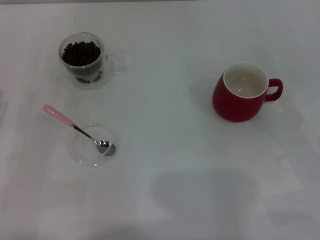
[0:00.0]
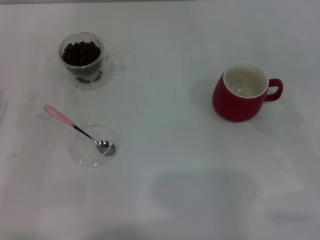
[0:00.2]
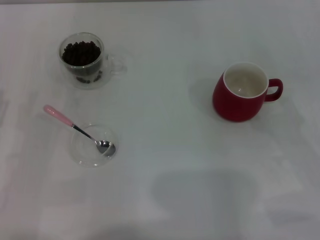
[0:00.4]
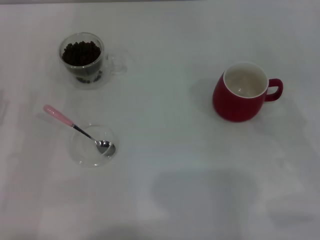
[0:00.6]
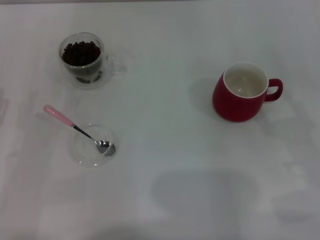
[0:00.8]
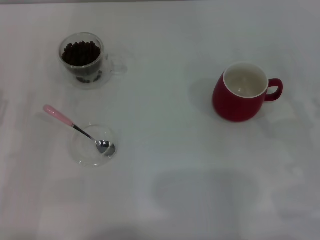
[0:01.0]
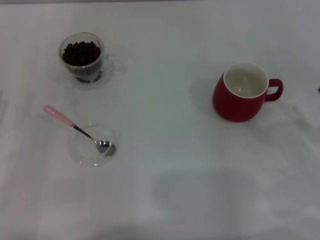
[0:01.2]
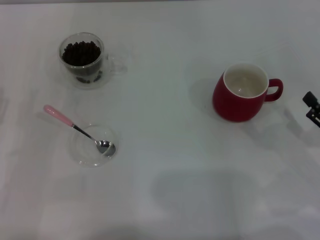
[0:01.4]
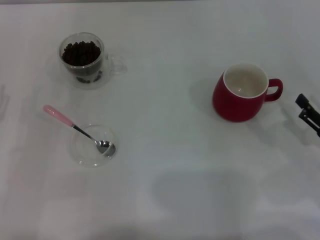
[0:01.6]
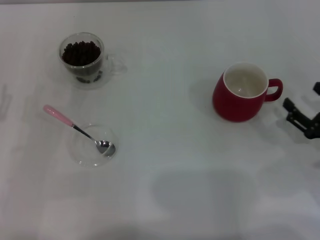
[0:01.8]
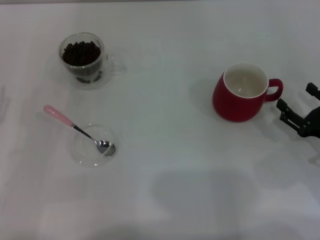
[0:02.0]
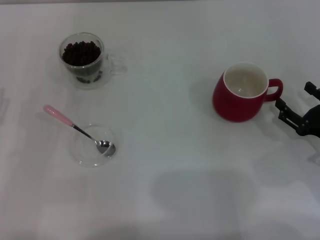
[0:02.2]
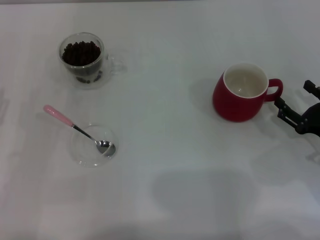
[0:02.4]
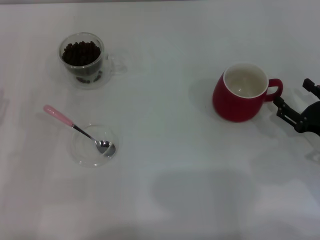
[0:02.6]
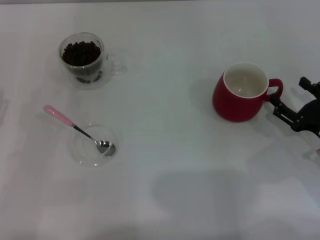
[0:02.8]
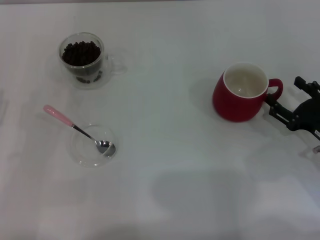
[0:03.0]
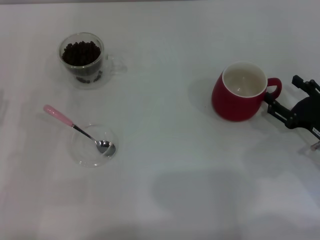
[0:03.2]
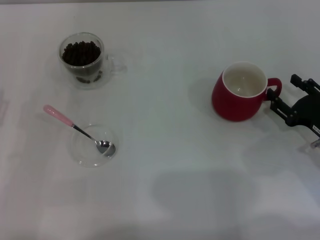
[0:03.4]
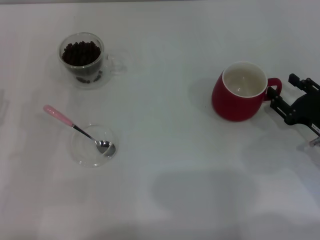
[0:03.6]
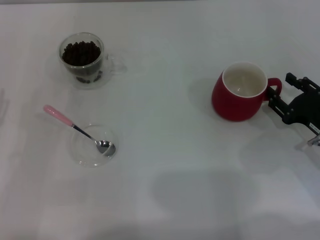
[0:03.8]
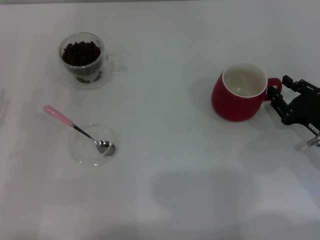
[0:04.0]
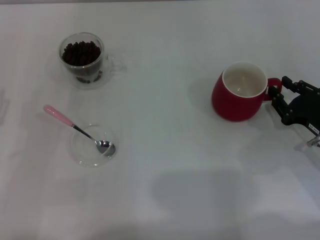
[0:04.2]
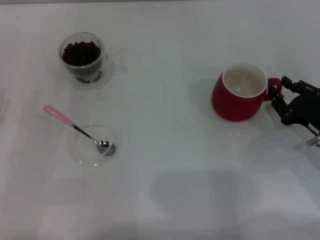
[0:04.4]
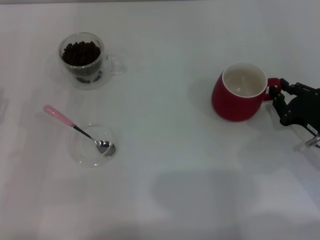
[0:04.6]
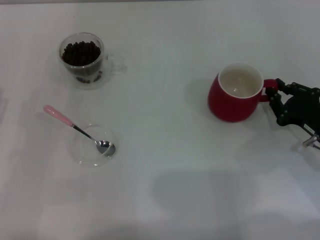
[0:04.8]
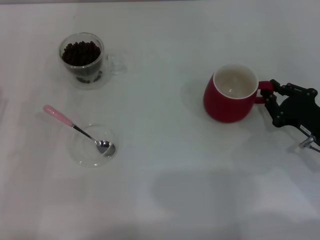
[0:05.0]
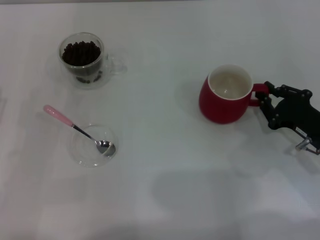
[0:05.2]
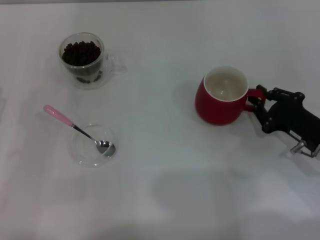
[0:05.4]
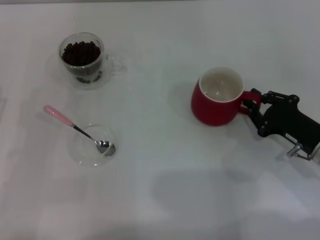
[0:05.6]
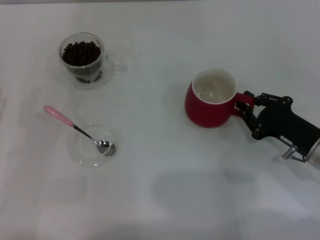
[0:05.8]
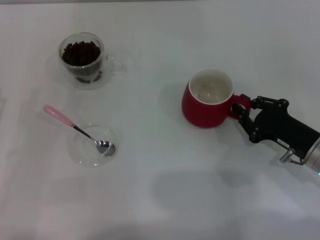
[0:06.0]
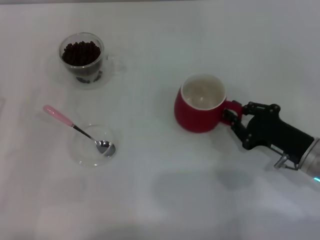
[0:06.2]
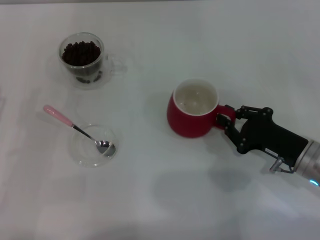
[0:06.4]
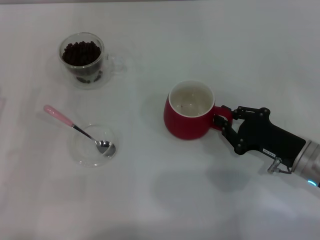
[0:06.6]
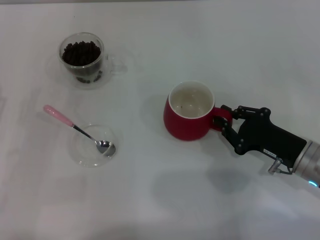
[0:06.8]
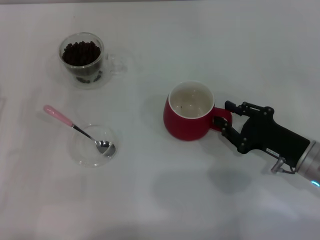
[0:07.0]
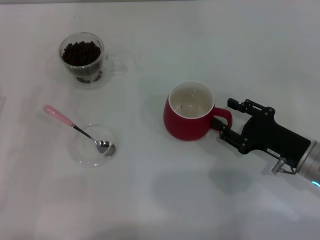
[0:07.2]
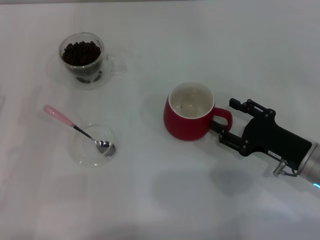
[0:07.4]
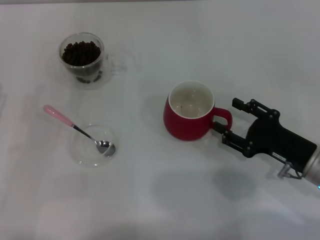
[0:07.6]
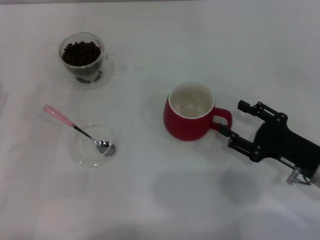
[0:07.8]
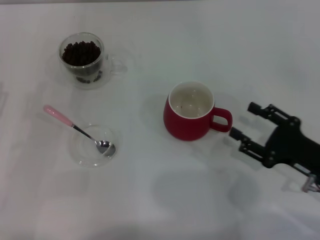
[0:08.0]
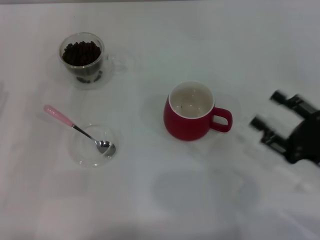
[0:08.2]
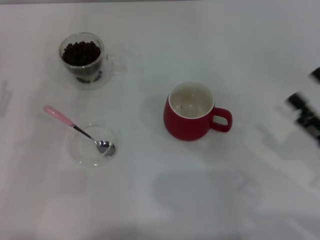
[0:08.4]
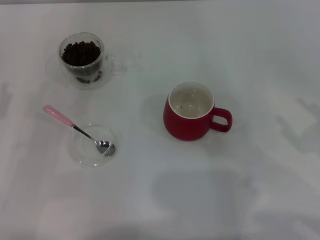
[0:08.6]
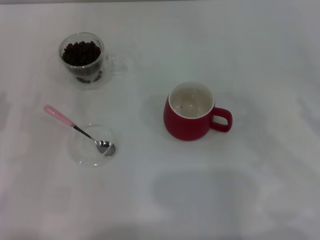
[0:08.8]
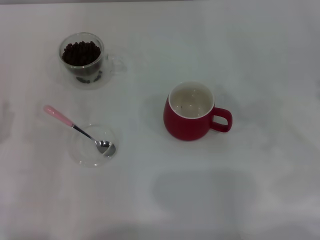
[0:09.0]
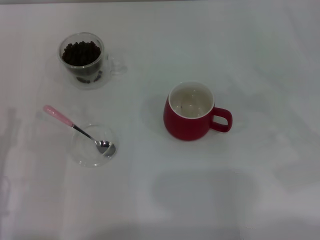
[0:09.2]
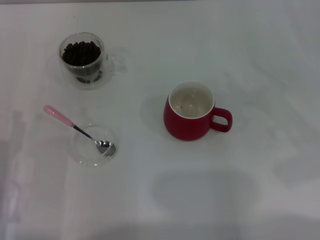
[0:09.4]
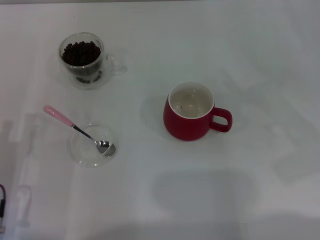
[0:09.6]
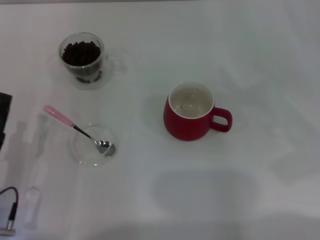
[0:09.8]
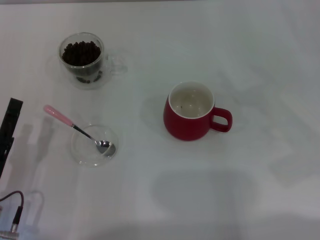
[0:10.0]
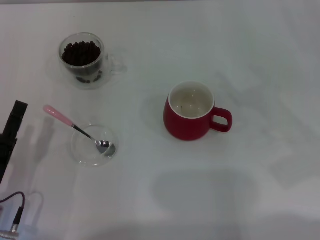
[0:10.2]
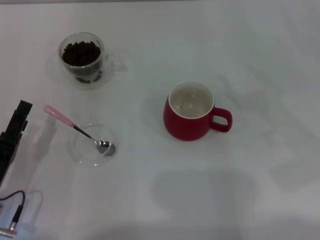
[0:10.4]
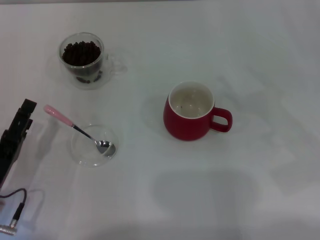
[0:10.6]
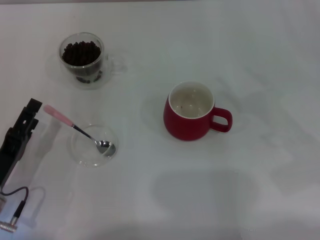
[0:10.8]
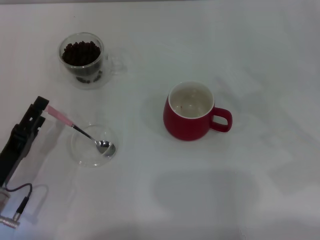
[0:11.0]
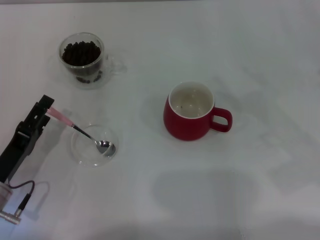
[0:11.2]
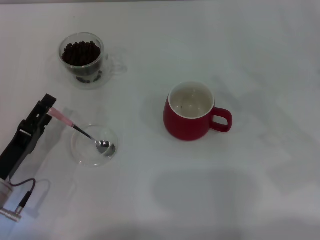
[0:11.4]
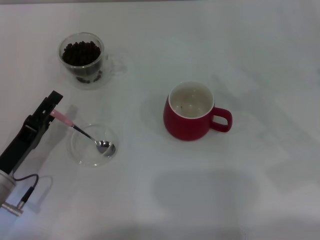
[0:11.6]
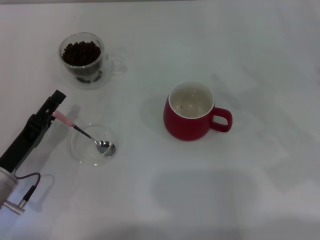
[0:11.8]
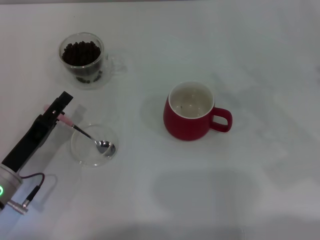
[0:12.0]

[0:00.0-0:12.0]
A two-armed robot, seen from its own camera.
Task of the whole recording: Use a pink spoon to take out the coffee beans from the glass and pour them into the red cup.
Step, 0:00.0 to 0:07.6: Move the cup to the center of view with the left gripper.
0:00.0 to 0:01.6: The right gripper heads downward, covering about 5 cm.
0:01.6 to 0:03.0: The grippers stay close to where they were, moving slightly.
0:03.0 to 0:04.4: The right gripper closes its fingers.
0:04.4 to 0:06.0: There are only small adjustments of the grippers.
0:06.0 to 0:07.6: The right gripper opens.
0:07.6 to 0:09.0: The right gripper is displaced to the right and upward by roughly 15 cm.
0:09.0 to 0:10.4: The left gripper moves roughly 5 cm.
0:10.4 to 0:12.0: The left gripper heads forward, covering roughly 5 cm.

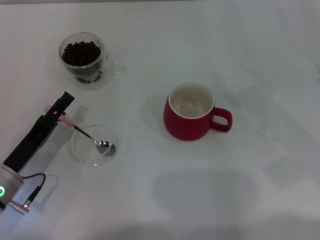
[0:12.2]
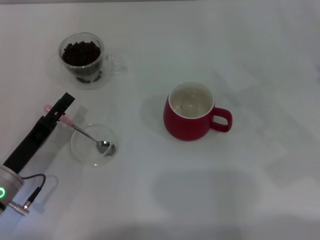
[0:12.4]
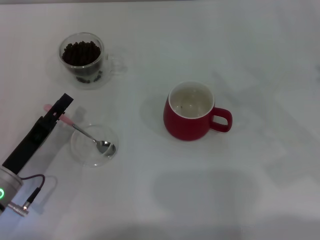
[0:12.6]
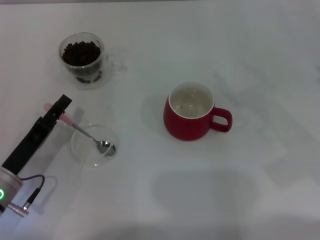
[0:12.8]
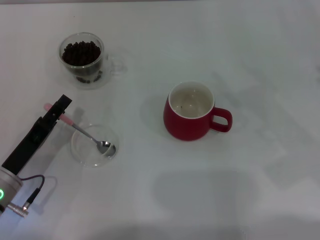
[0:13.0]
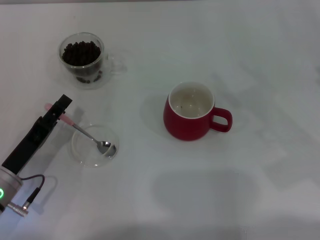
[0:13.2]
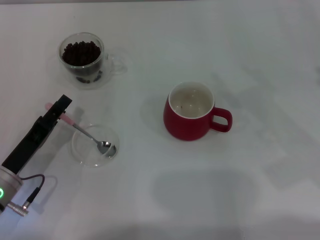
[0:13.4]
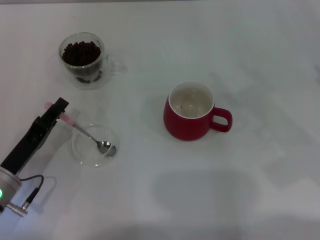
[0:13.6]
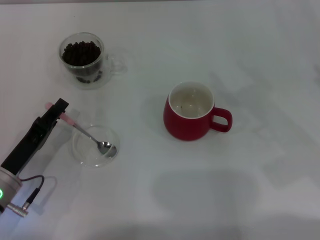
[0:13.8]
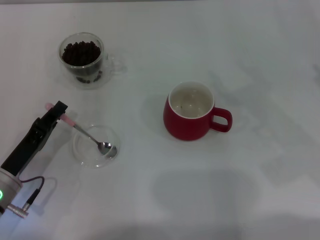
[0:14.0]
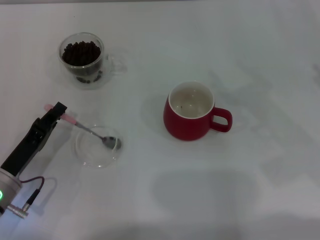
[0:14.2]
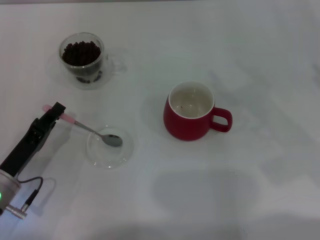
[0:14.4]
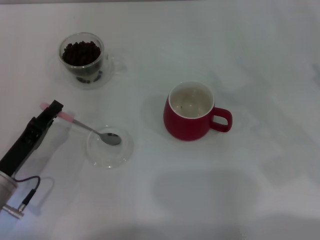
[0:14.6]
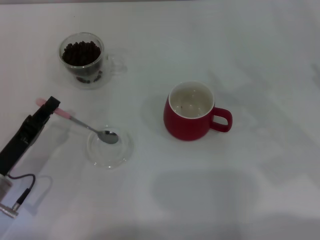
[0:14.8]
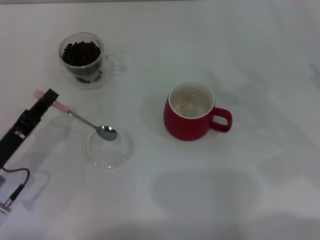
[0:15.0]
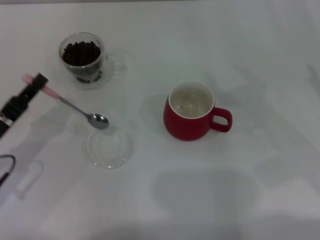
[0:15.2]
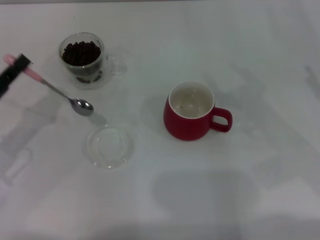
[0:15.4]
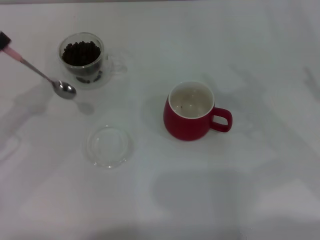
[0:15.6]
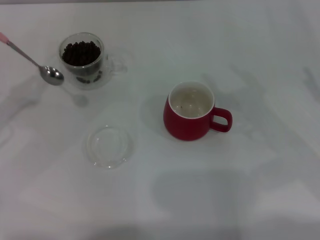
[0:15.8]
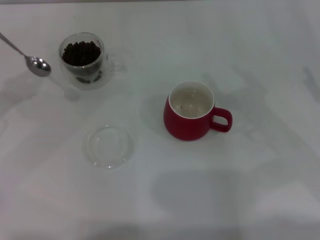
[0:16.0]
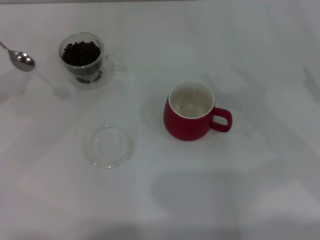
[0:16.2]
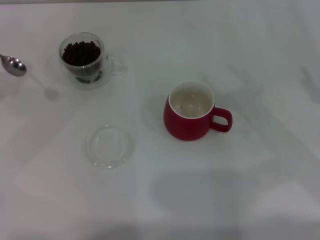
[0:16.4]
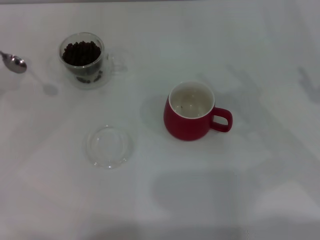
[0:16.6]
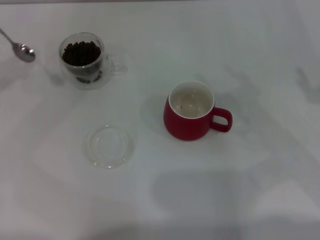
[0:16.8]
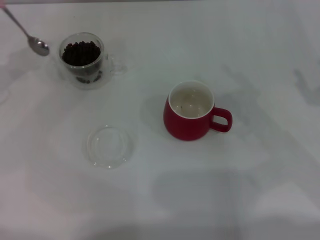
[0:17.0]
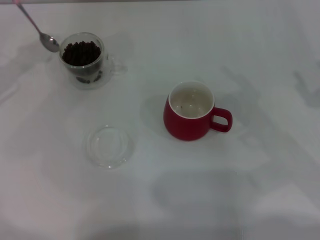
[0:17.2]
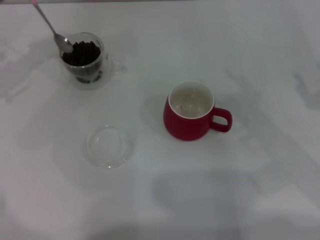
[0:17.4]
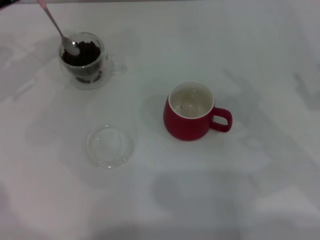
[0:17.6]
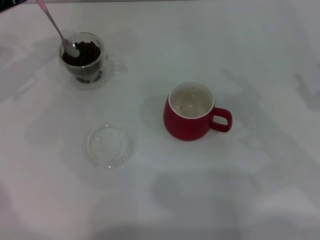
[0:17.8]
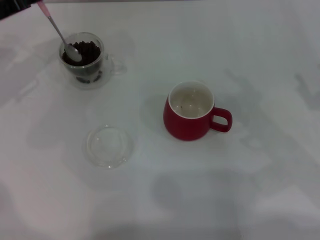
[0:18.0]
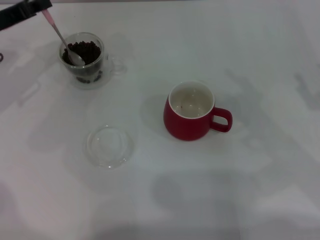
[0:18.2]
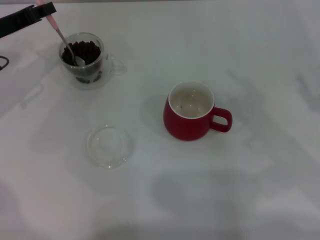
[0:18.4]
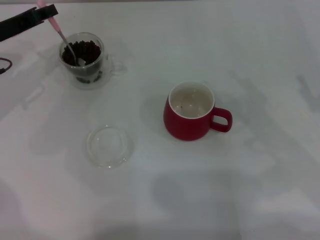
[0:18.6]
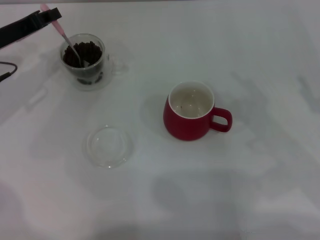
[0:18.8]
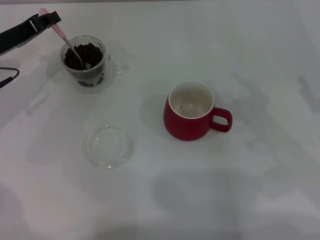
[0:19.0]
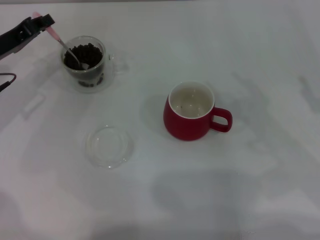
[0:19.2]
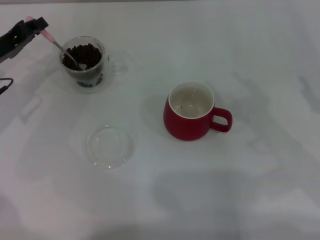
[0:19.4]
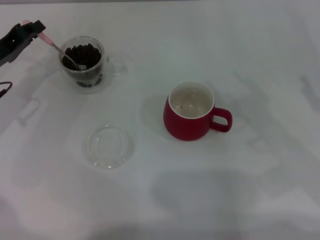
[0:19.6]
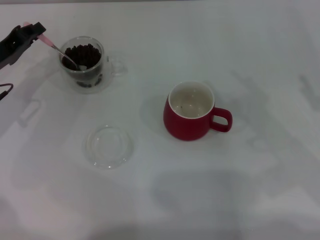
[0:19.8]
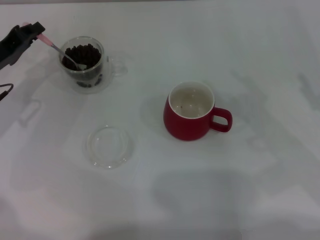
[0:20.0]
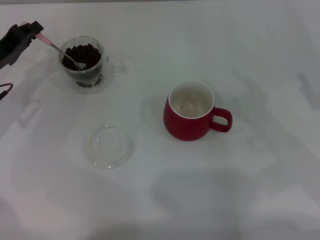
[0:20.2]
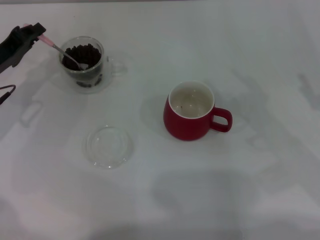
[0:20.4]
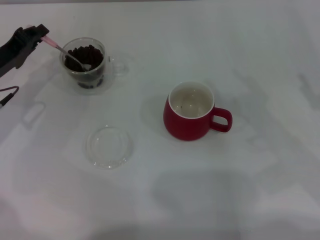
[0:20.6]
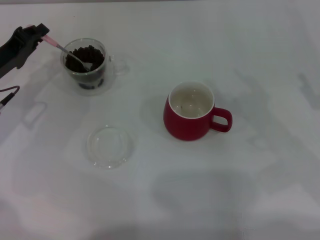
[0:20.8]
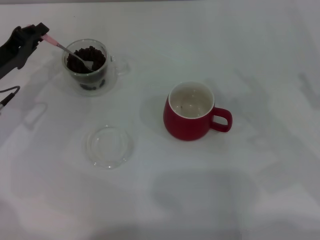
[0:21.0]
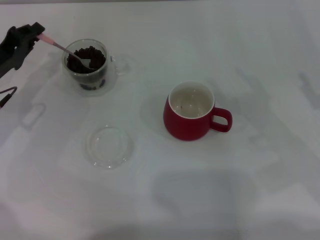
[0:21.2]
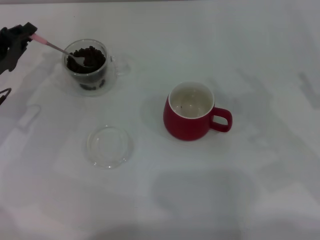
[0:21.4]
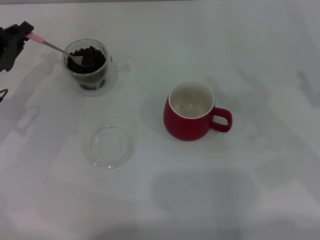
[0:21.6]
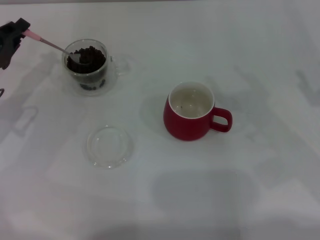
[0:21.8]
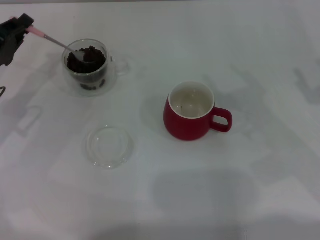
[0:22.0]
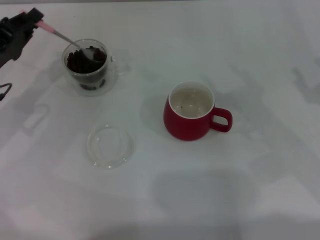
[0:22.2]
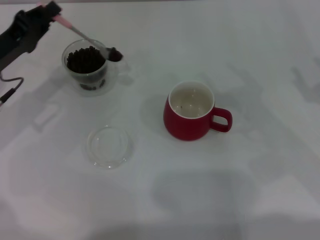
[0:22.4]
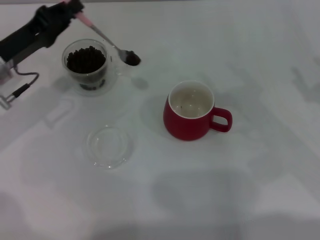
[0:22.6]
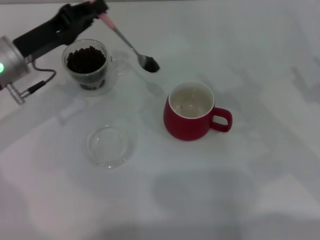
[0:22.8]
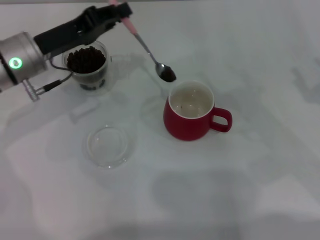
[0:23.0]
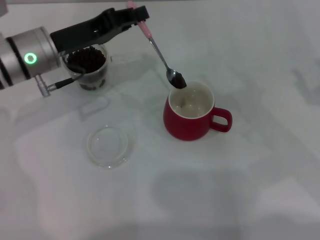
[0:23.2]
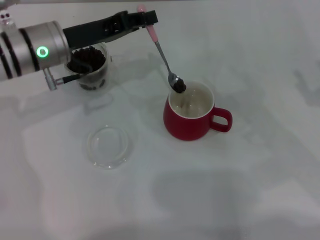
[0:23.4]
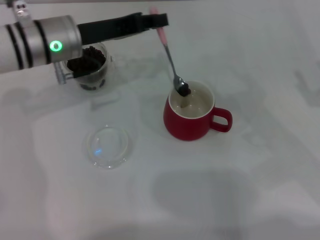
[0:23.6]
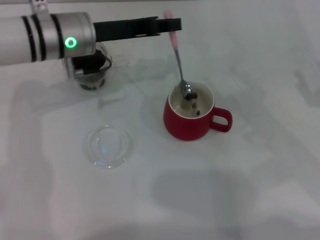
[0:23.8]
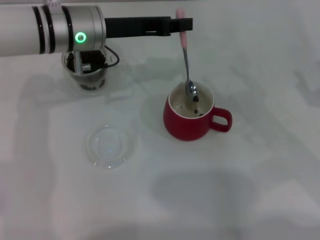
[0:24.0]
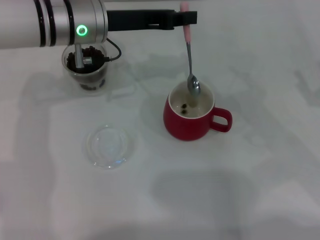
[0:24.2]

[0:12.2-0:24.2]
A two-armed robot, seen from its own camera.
Task of the whole recording: Use a pink spoon to take out the coffee beans from the glass and pour them into the red cup.
Step, 0:12.2 to 0:15.0: Pick up the spoon with the right gripper.
0:12.2 to 0:13.8: The left gripper closes up.
0:13.8 to 0:15.2: The left gripper shifts by some 5 cm, and closes its fingers.
0:15.2 to 0:16.6: The left gripper goes approximately 15 cm upward, to the left and forward.
0:16.6 to 0:18.2: The left gripper moves to the right and forward, roughly 15 cm.
0:18.2 to 0:19.8: The left gripper changes place by some 5 cm.
0:19.8 to 0:21.2: The grippers move only a little.
0:21.2 to 0:22.6: The left gripper moves some 5 cm.
0:22.6 to 0:24.2: The left gripper is displaced to the right, upward and forward by roughly 15 cm.
